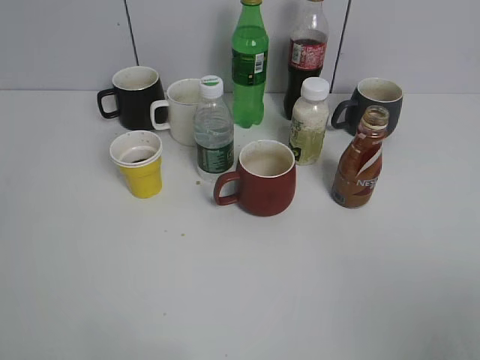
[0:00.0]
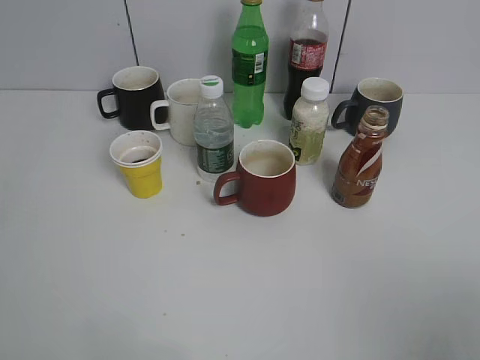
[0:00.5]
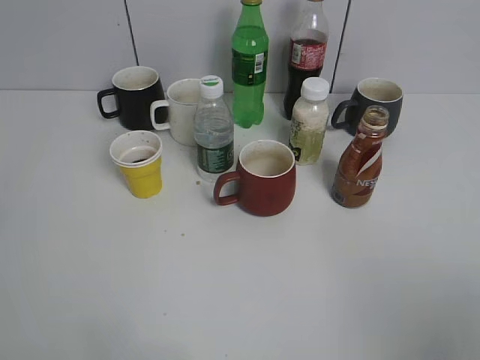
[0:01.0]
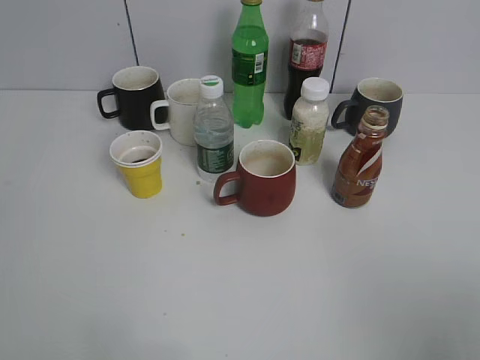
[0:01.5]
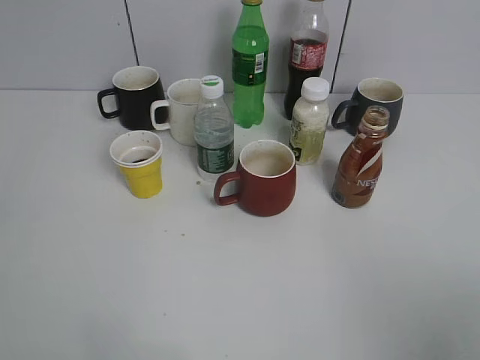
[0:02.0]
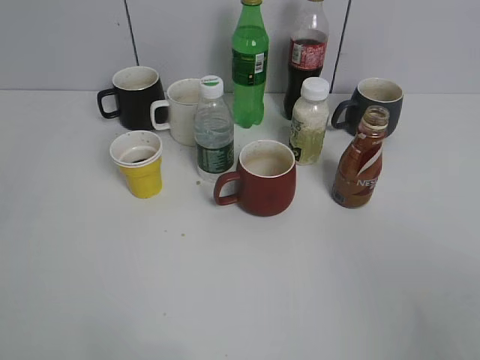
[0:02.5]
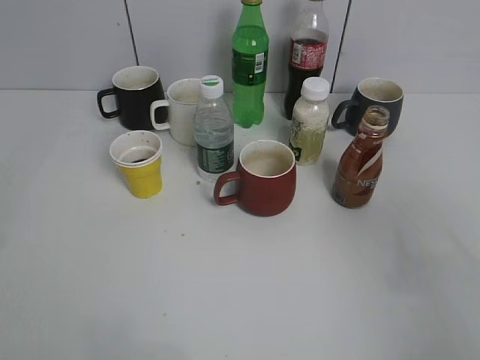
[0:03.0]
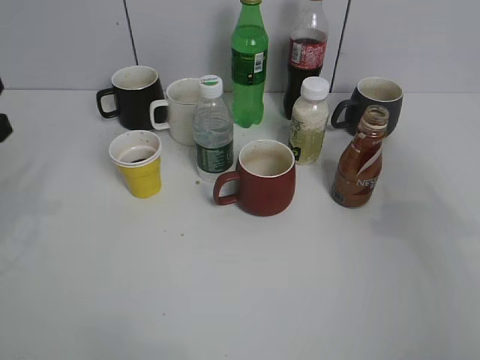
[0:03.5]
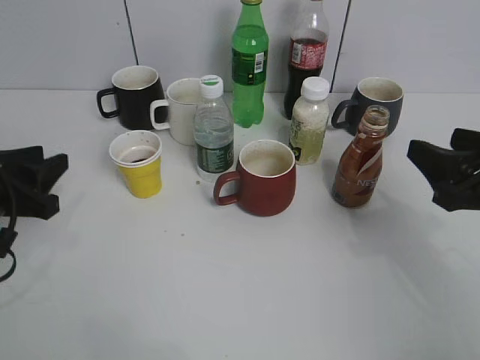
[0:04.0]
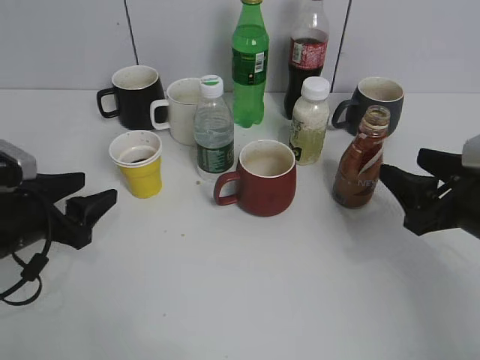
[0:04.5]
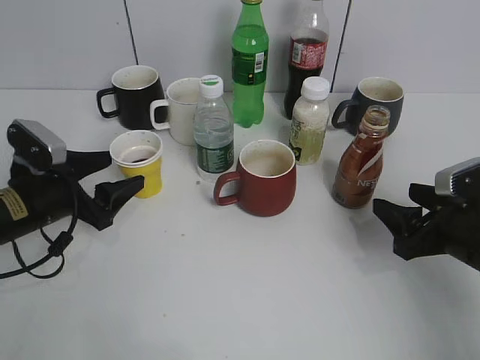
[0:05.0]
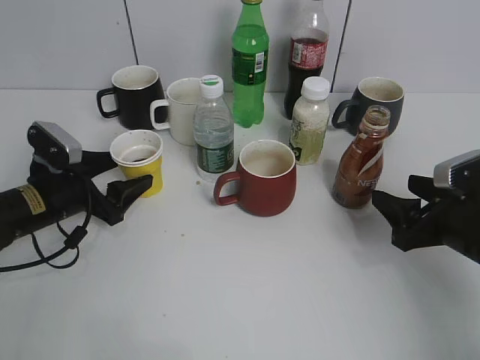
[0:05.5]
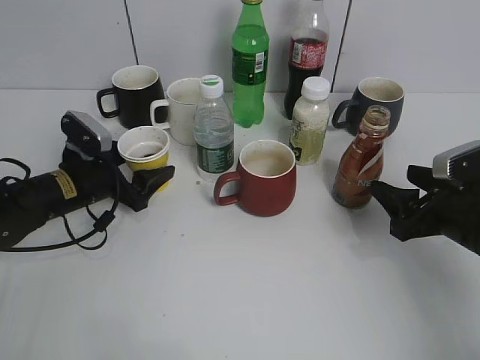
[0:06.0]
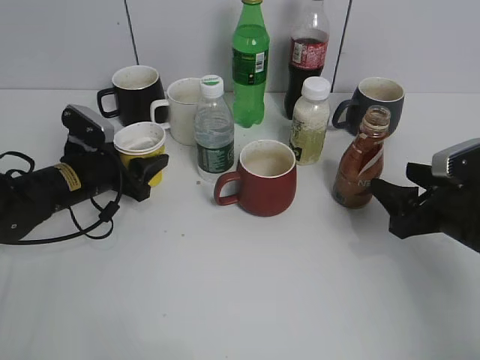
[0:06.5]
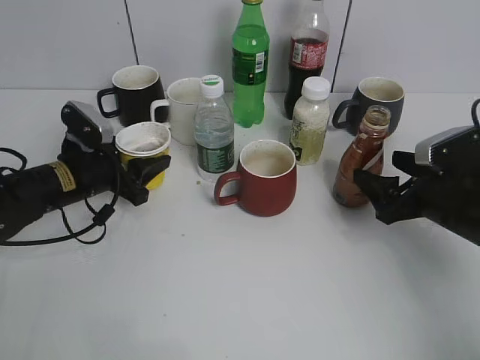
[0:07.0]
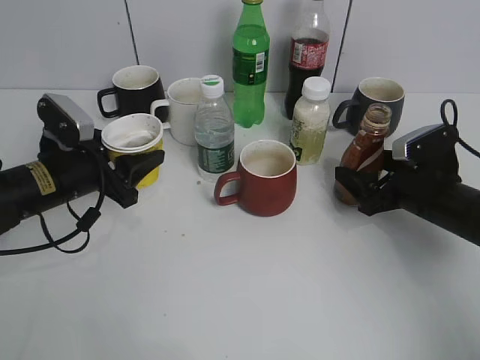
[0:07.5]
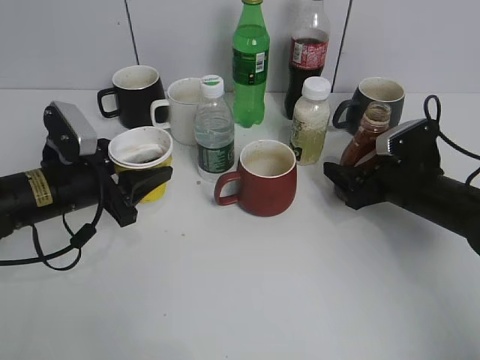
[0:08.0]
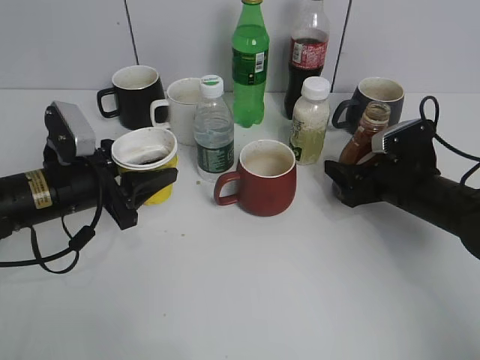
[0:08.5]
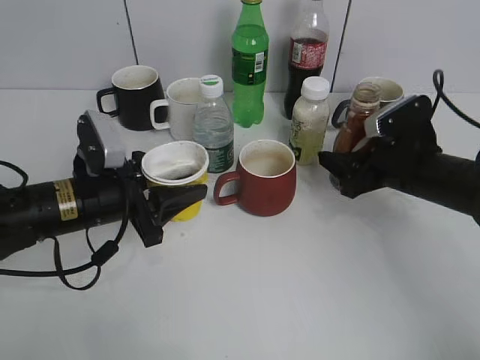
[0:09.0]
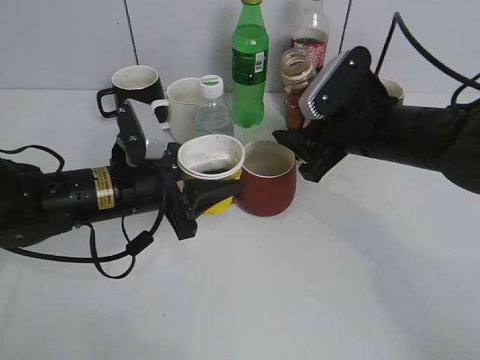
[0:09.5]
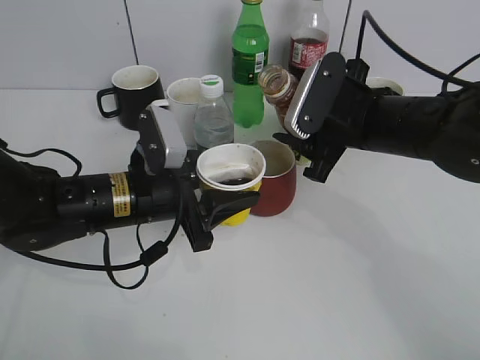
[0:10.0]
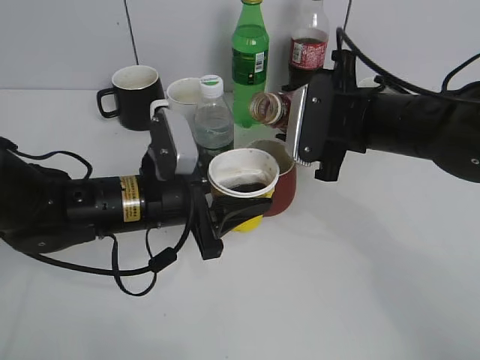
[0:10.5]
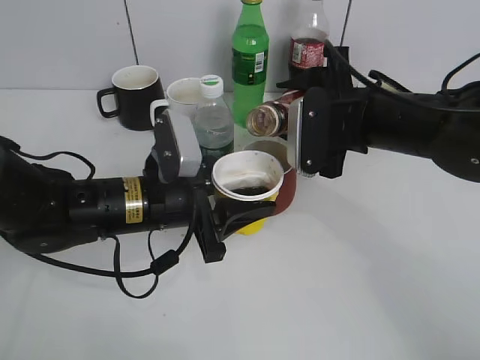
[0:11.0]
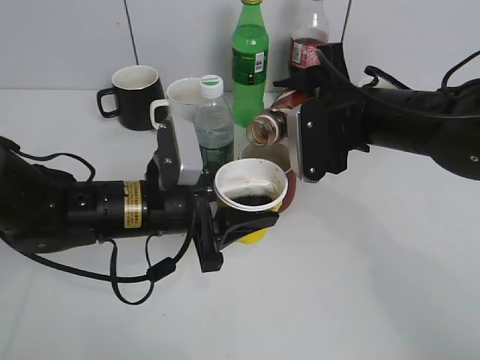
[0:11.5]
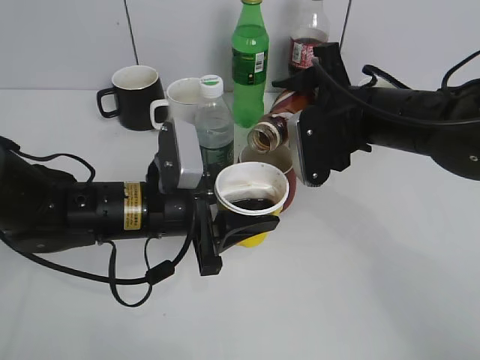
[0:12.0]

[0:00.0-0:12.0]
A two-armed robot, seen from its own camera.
Step, 0:02.5 to 0:05.0: Grasp the yellow paper cup with left gripper.
Step, 0:05.5 to 0:08.0: Grasp the bottle with coffee with right gripper.
0:02.0 to 0:04.0: The grippers both shift forward and downward by some 25 cm. The right gripper closes up.
0:04.0 to 0:06.0: The left gripper travels forward, downward and to the right by roughly 15 cm, and opens up, while the right gripper moves downward, about 10 cm.
0:06.0 to 0:08.0: The right gripper shifts approximately 10 cm forward, and opens up, while the left gripper ends up roughly 5 cm from where it was, and closes up.
0:08.0 to 0:10.0: The right gripper heads upward and to the left, covering about 15 cm, and closes its fingers. The left gripper travels to the right by roughly 10 cm.

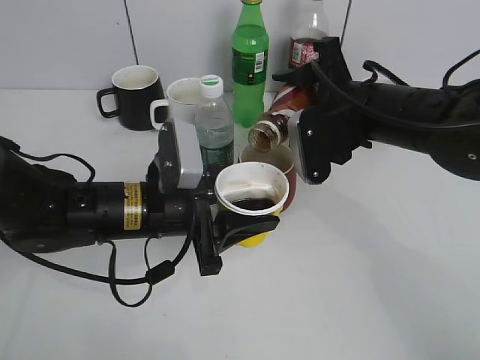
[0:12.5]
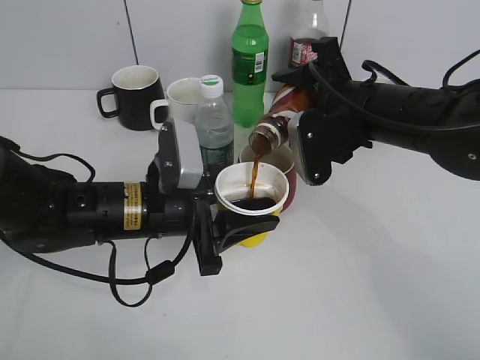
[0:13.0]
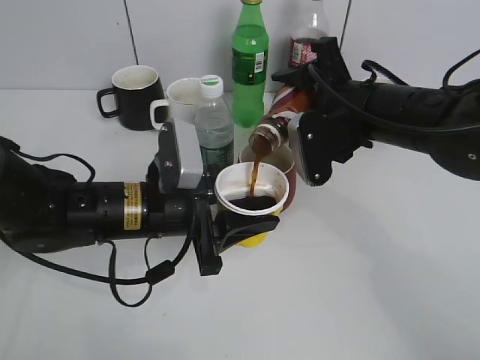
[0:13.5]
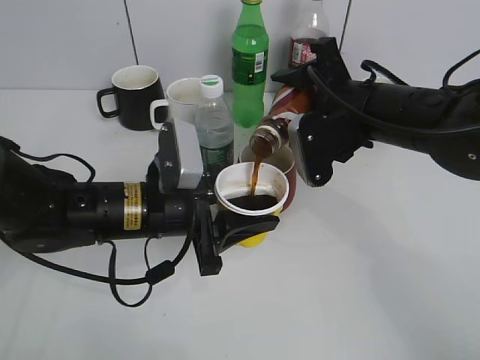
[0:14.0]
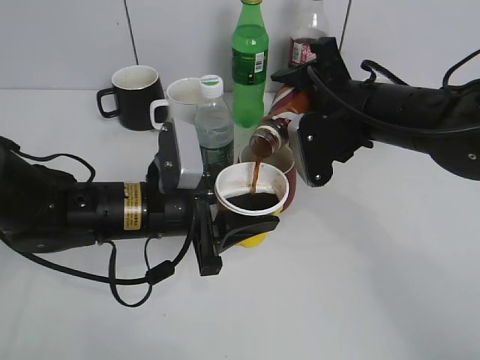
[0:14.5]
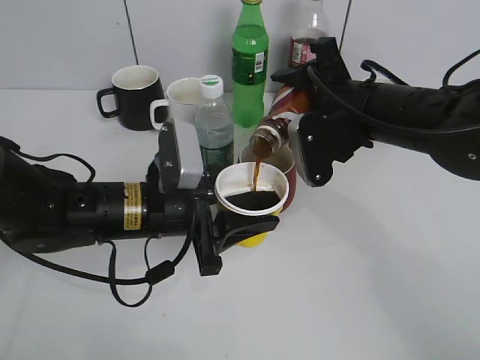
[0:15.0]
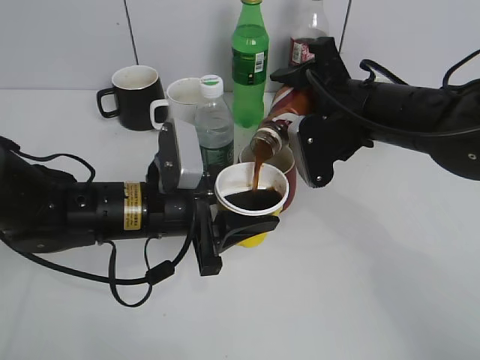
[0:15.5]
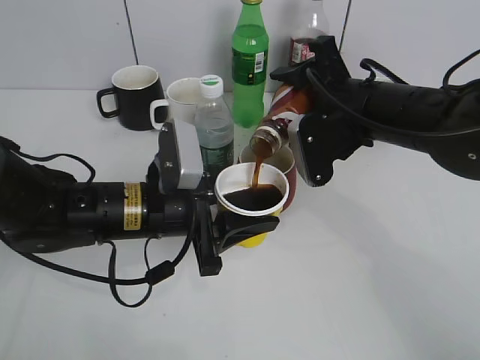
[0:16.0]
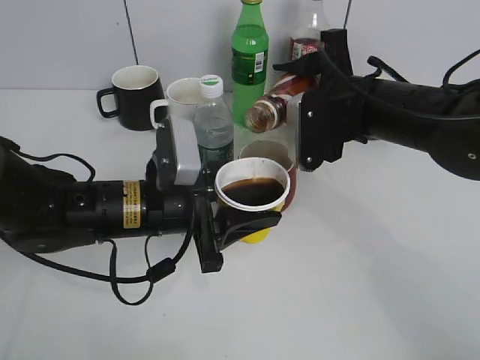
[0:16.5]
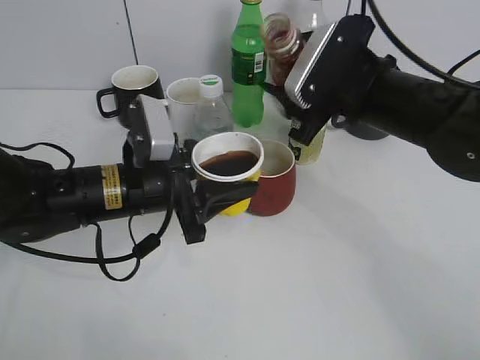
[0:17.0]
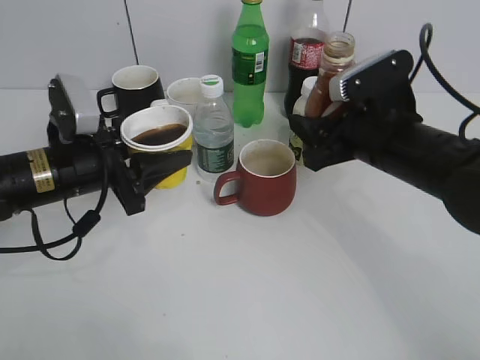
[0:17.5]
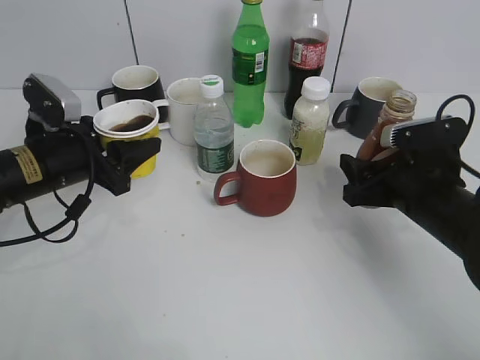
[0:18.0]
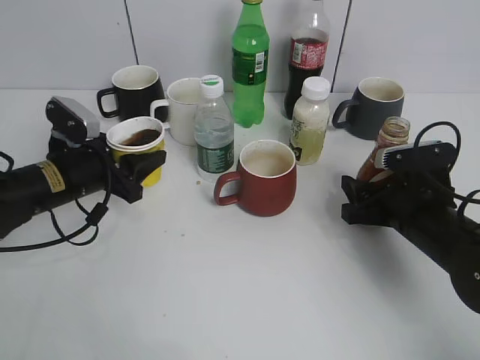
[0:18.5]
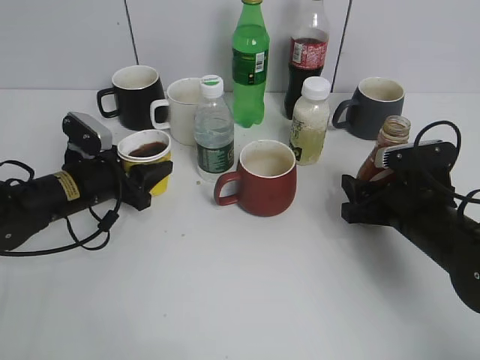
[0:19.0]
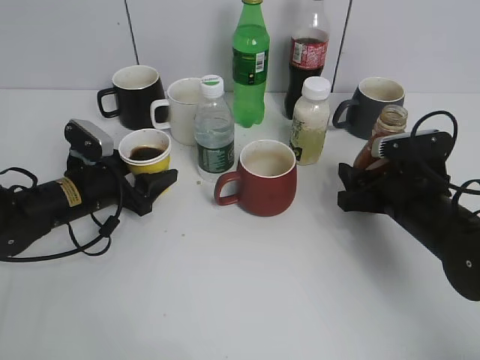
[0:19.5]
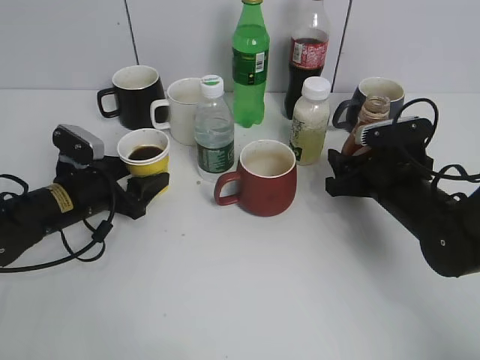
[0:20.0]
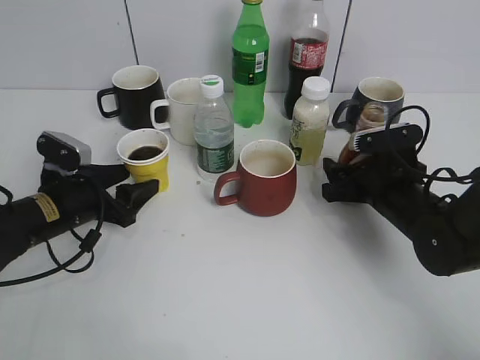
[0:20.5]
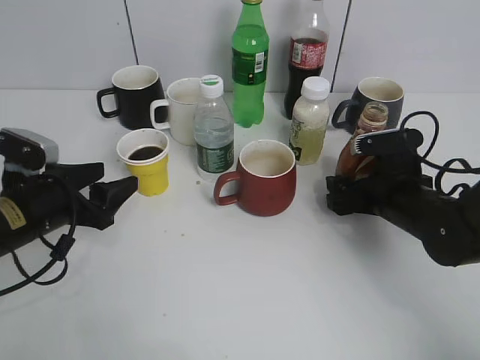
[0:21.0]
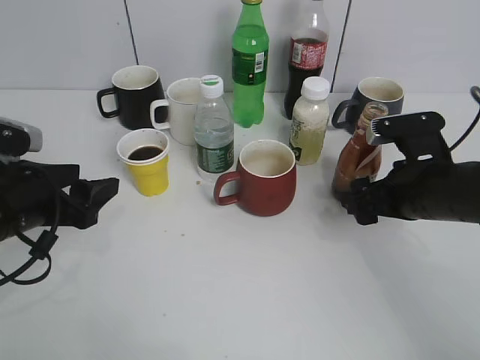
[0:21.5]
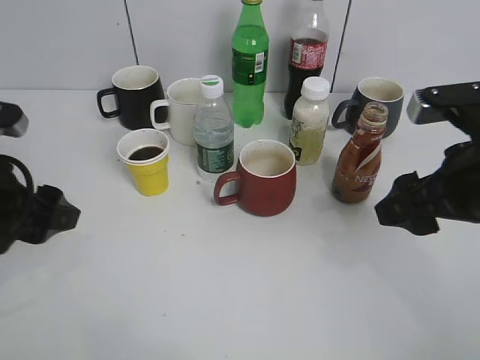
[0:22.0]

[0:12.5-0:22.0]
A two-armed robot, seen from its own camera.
Step, 0:12.5 to 0:17.0: Pour the coffee from bottle to cup with right gripper.
Step, 0:17.5 to 0:21.0: Place the coffee bottle on the table with right gripper.
0:12.5 to 0:14.5: Both grippers stay put.
0:14.5 to 0:16.5: The grippers make only small movements.
0:16.5 to 0:18.0: The left gripper shifts approximately 10 cm to the left. The right gripper heads downward and to the right, covering about 10 cm.
0:18.0 to 0:20.0: The left gripper heads downward, covering some 10 cm, and opens its fingers, while the right gripper changes place by some 5 cm.
0:20.0 to 0:22.0: The grippers both shift upward and backward by roughly 15 cm. The right gripper opens its fingers.

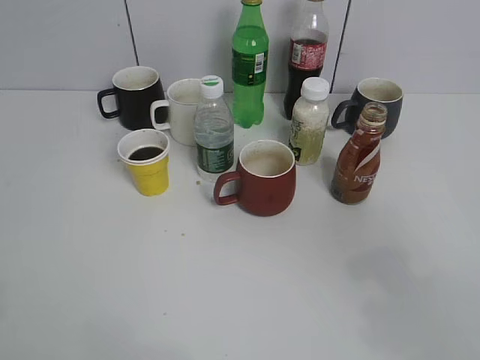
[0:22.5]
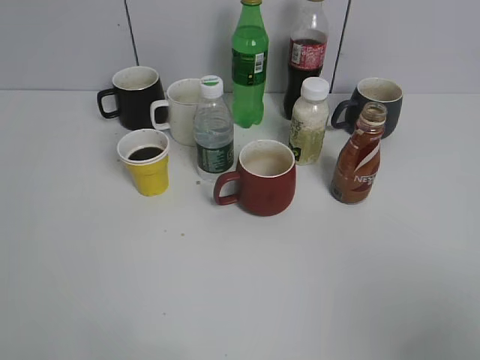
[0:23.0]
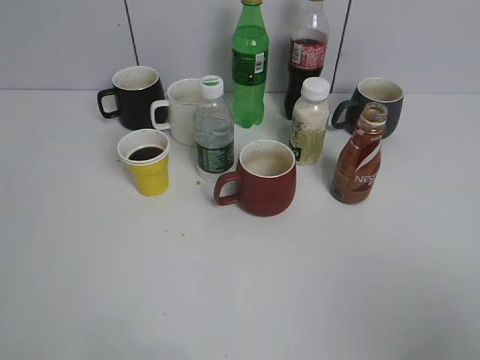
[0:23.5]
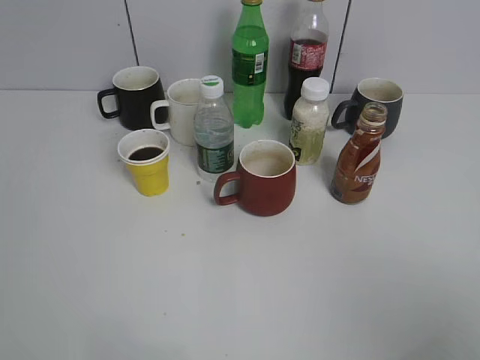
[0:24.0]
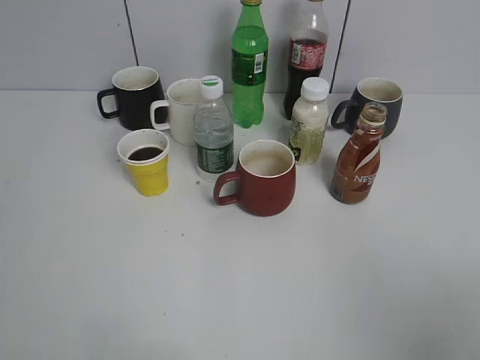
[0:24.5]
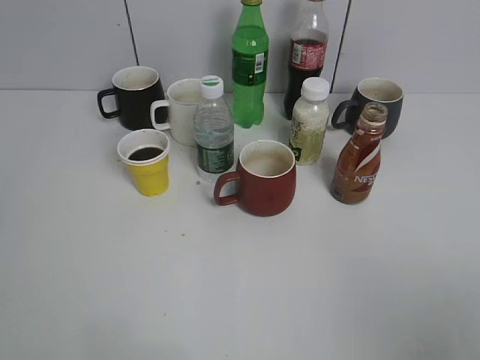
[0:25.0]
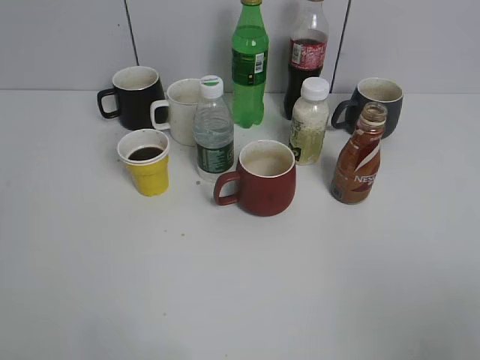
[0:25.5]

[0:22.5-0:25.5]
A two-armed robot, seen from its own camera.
0:22.5 to 0:24.0: The right gripper moves backward, roughly 10 cm.

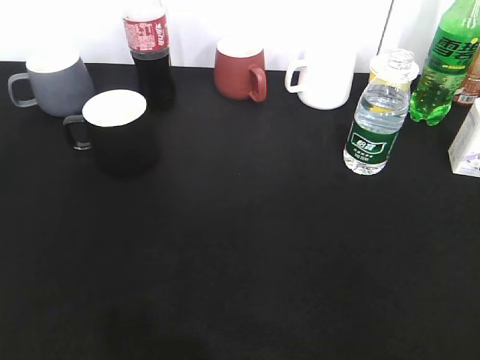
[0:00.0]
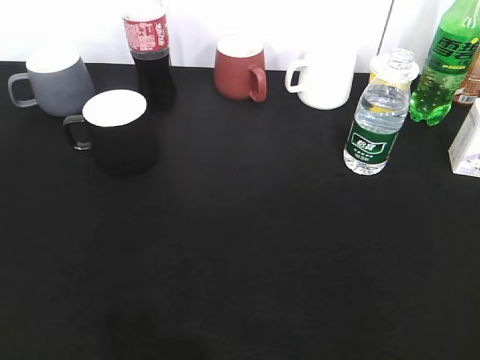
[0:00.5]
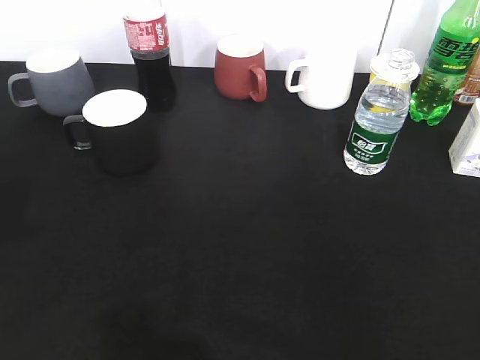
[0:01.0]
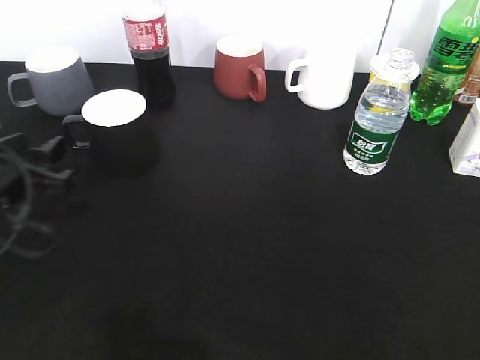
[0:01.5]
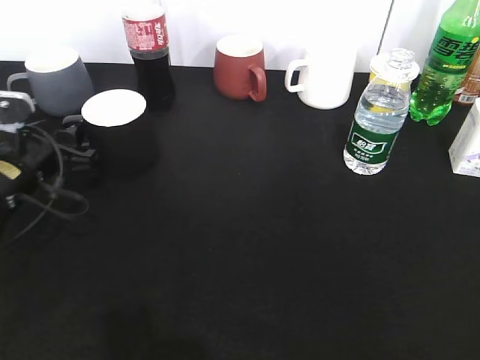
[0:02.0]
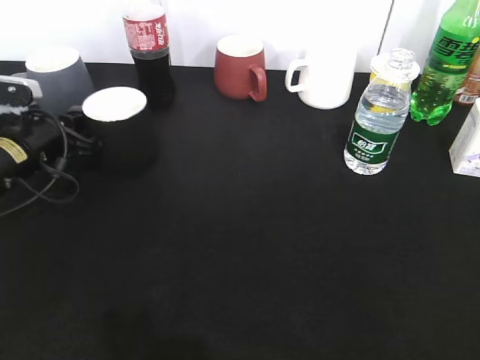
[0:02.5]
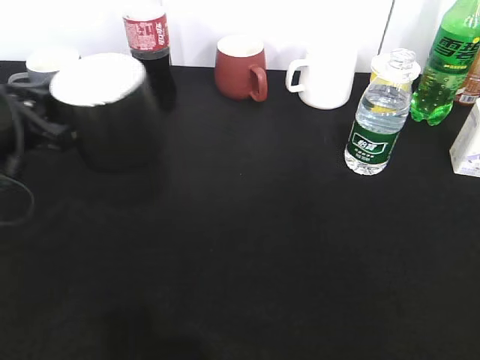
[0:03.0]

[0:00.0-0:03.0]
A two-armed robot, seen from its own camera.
Step, 0:00.5 to 0:02.0: Grasp the black cup with left gripper.
0:00.0 to 0:01.5: The left gripper moves forward and downward, approximately 30 cm, and opens its fingers.
0:01.5 to 0:03.0: The left gripper heads upward, covering some 5 cm, moves some 10 cm forward and comes back, and closes.
